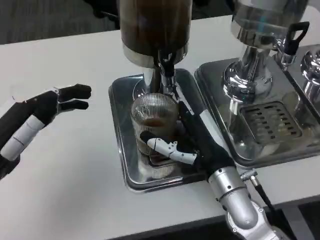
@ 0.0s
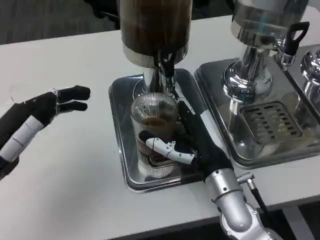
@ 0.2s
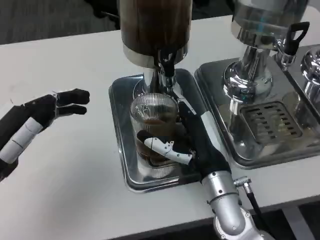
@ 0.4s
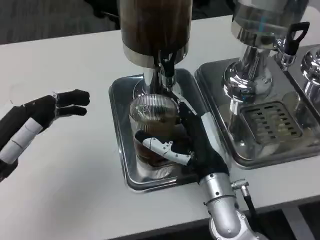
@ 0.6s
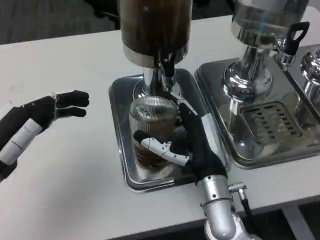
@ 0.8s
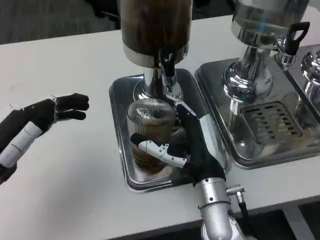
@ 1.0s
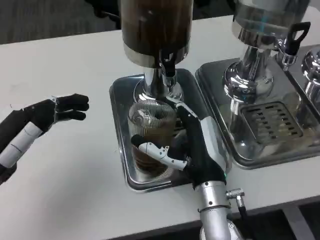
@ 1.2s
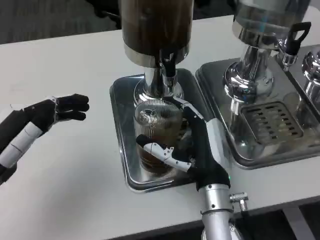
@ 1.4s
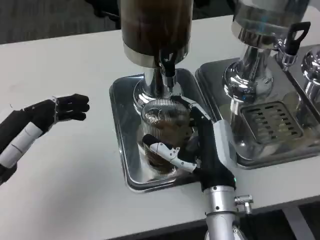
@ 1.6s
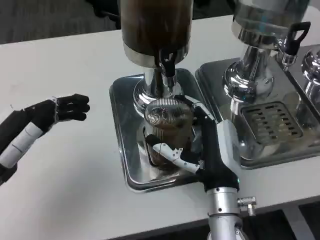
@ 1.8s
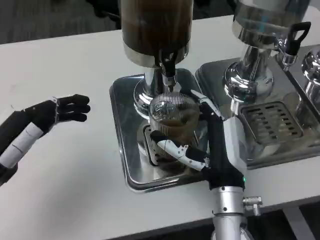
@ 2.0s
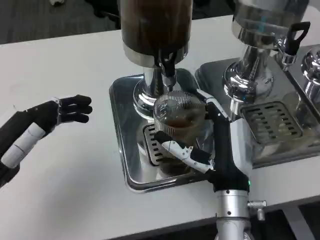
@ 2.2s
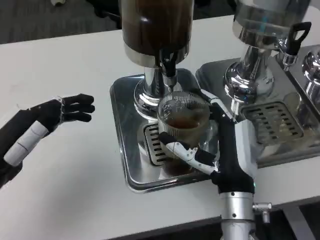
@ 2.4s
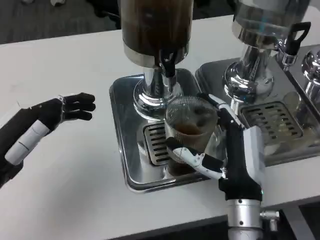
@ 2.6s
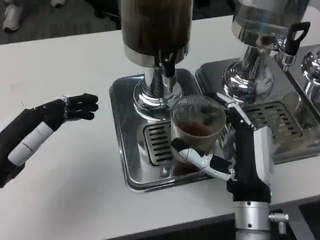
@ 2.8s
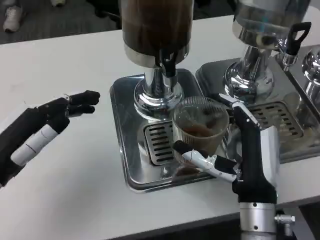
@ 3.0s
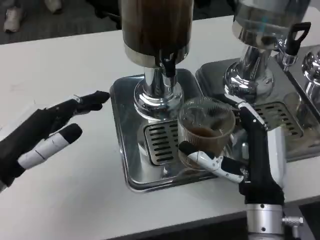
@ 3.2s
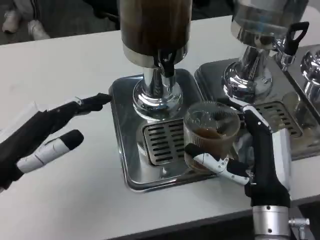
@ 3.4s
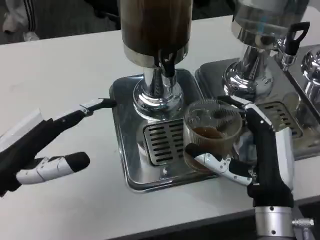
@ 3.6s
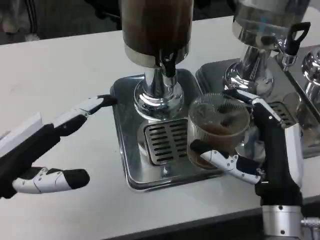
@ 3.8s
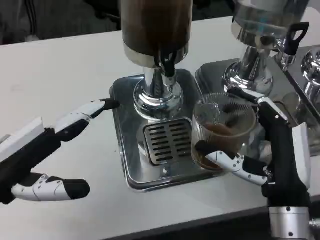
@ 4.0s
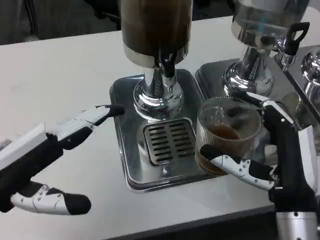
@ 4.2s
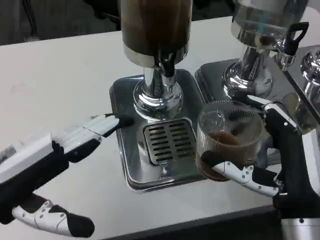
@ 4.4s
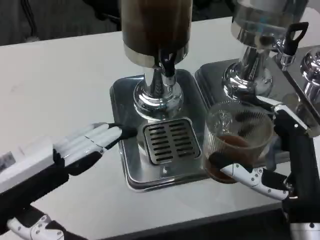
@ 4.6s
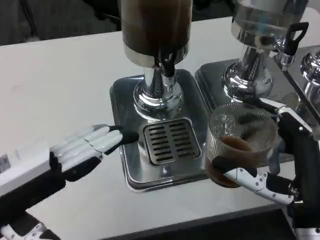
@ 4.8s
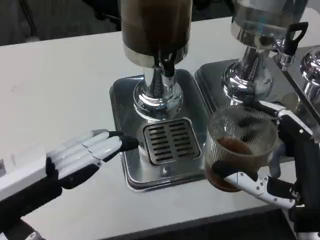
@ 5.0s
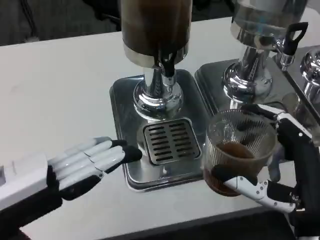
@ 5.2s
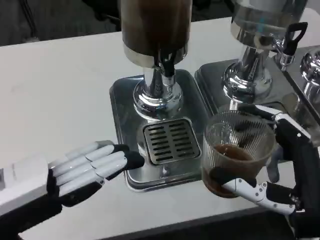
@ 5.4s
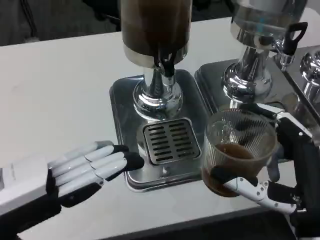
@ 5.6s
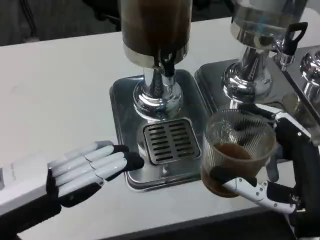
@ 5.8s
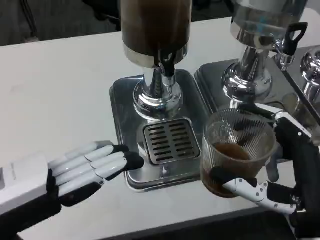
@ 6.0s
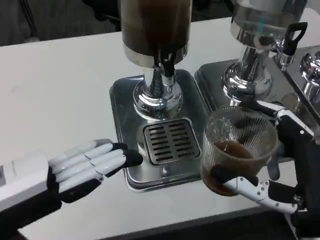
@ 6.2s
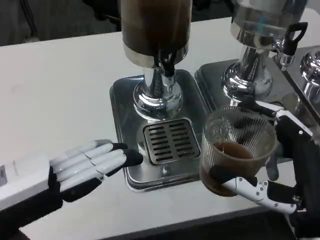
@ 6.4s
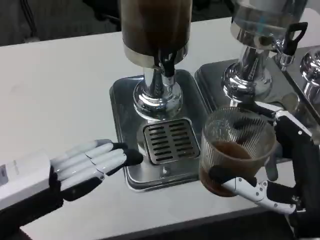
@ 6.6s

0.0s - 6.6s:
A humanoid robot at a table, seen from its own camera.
Task of the whole recording: Grasp the cup under the faucet to collect the drink, then remove the cup.
1.6s - 3.2s: The right hand heads to the right, covering approximately 5 cm.
3.2s - 5.0s: Both hands move backward, some 5 cm.
5.0s - 6.6s: The hands stay close to where they were, moving slightly.

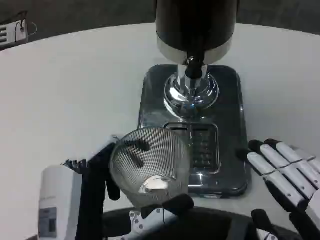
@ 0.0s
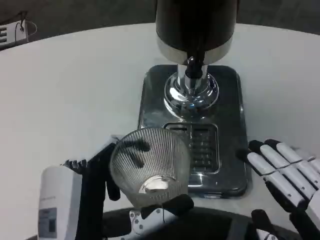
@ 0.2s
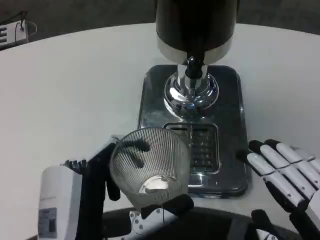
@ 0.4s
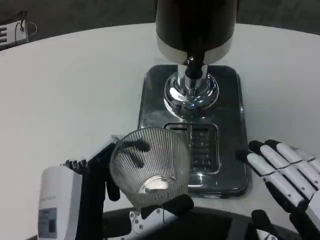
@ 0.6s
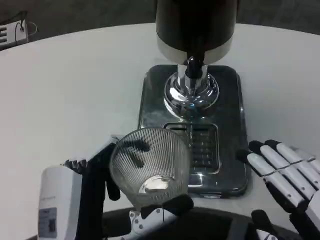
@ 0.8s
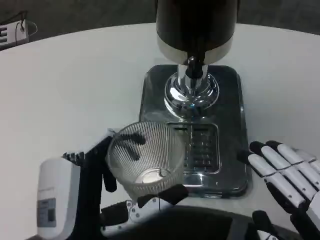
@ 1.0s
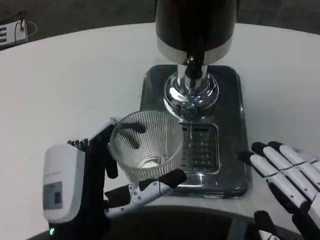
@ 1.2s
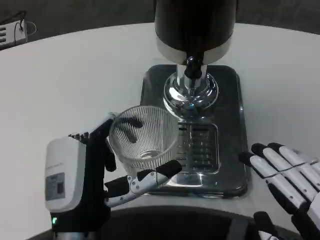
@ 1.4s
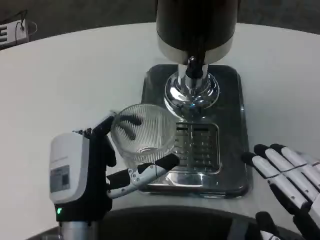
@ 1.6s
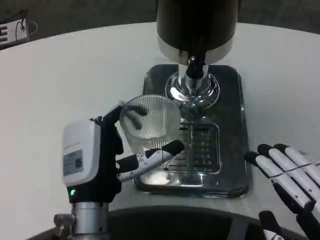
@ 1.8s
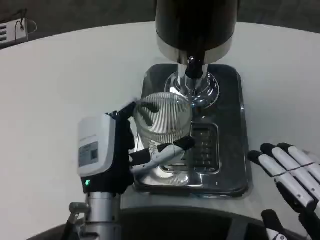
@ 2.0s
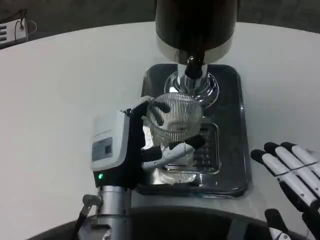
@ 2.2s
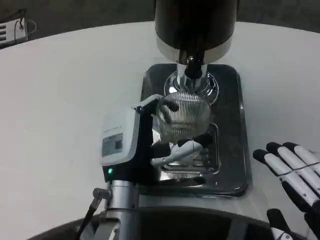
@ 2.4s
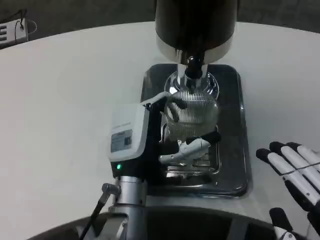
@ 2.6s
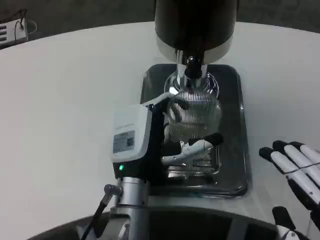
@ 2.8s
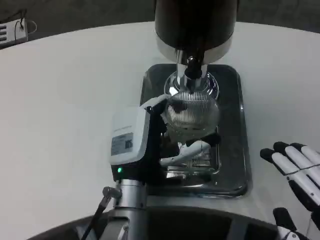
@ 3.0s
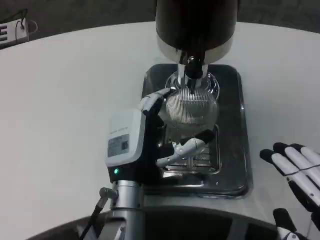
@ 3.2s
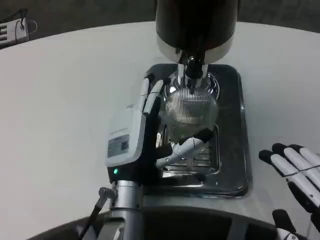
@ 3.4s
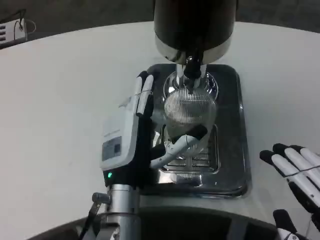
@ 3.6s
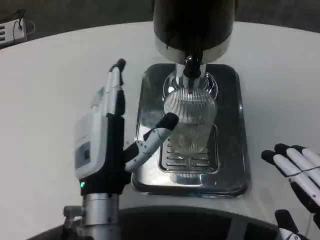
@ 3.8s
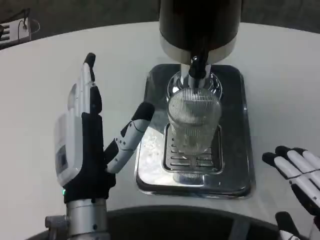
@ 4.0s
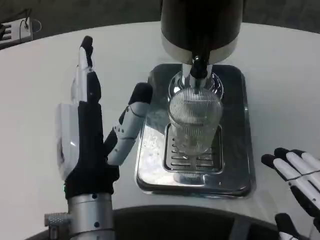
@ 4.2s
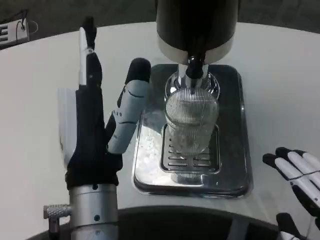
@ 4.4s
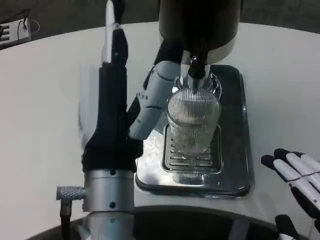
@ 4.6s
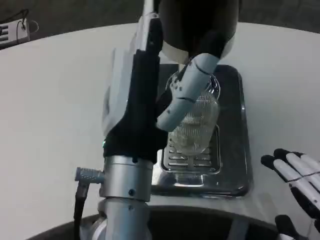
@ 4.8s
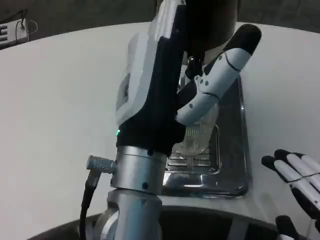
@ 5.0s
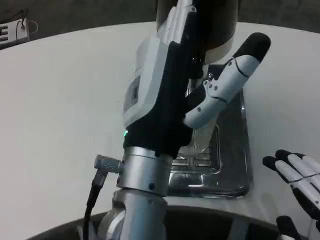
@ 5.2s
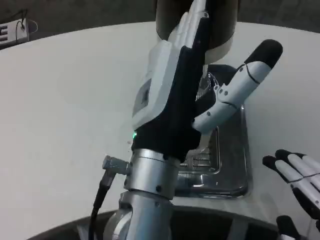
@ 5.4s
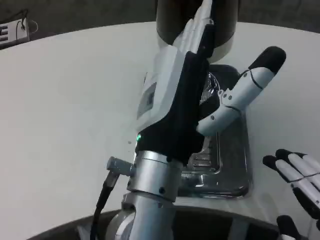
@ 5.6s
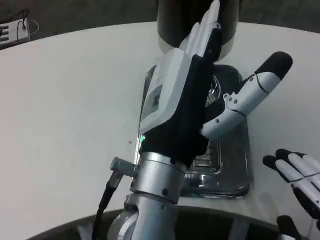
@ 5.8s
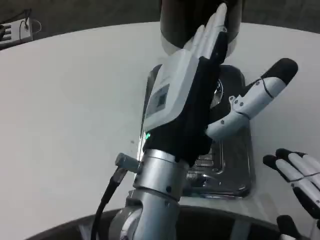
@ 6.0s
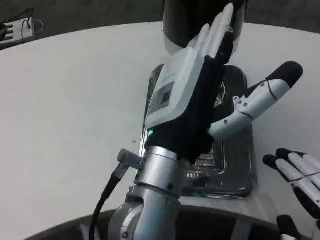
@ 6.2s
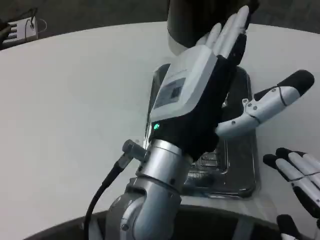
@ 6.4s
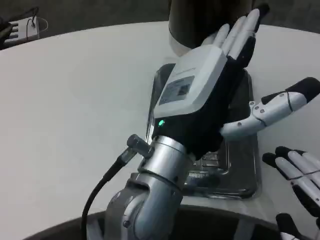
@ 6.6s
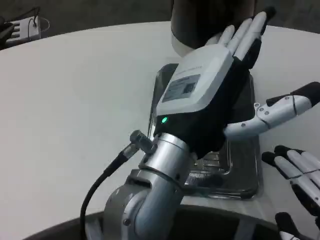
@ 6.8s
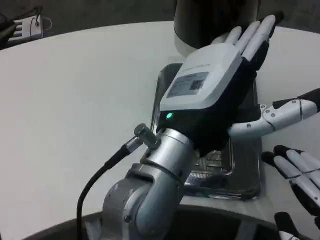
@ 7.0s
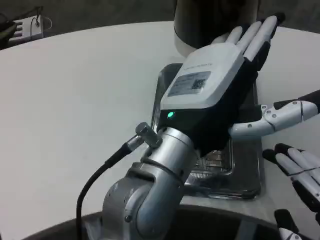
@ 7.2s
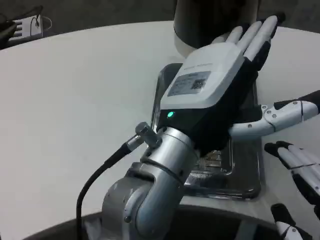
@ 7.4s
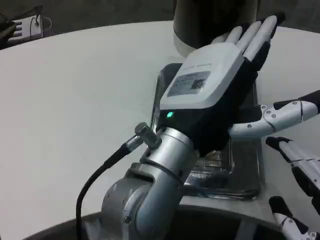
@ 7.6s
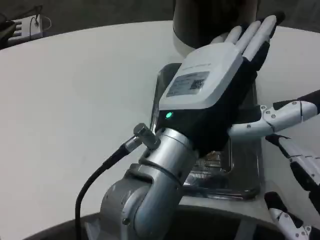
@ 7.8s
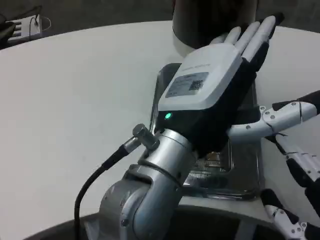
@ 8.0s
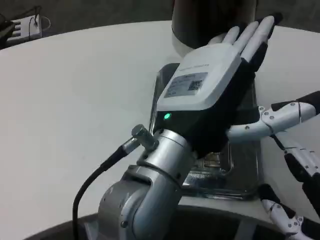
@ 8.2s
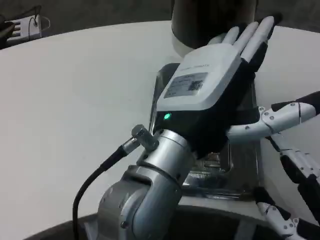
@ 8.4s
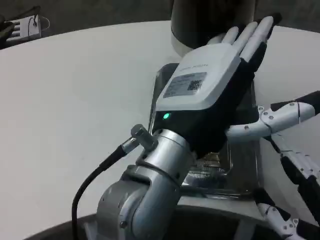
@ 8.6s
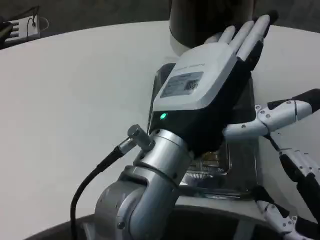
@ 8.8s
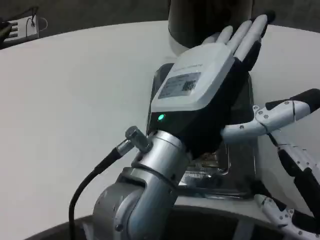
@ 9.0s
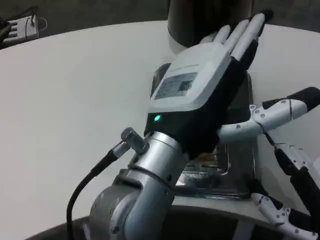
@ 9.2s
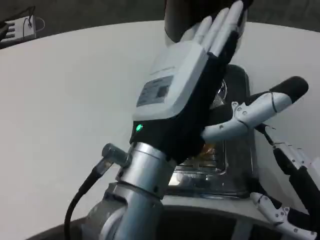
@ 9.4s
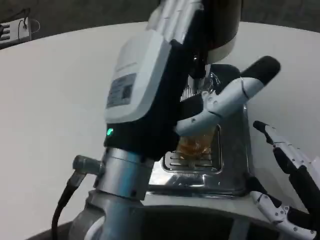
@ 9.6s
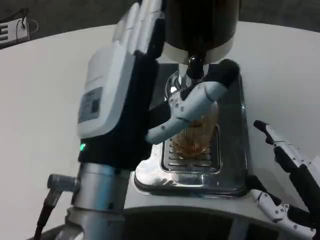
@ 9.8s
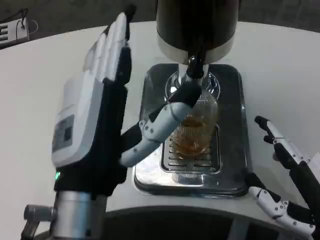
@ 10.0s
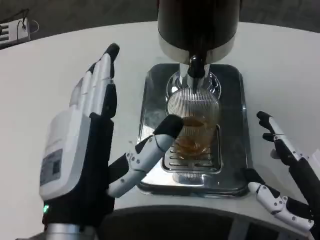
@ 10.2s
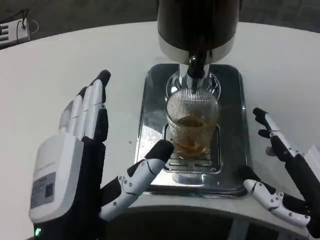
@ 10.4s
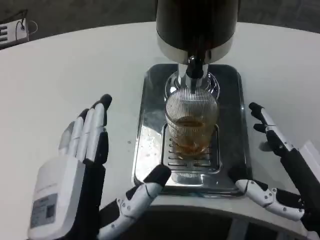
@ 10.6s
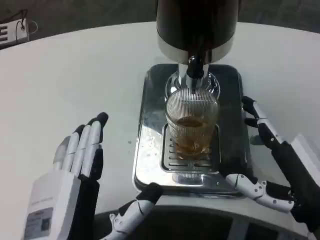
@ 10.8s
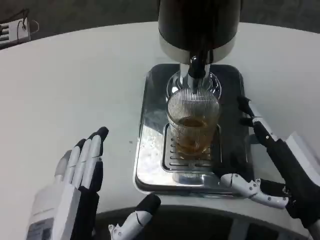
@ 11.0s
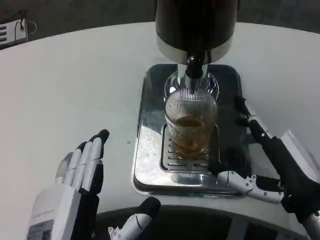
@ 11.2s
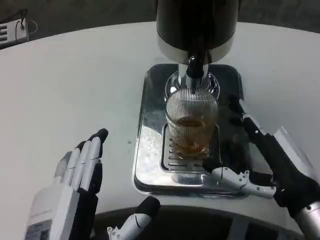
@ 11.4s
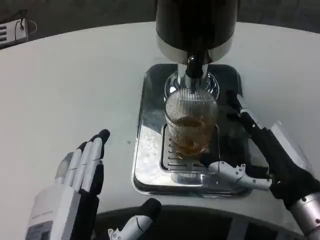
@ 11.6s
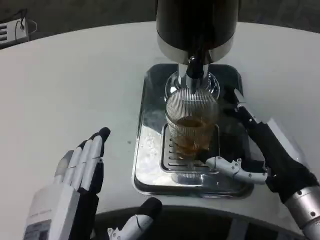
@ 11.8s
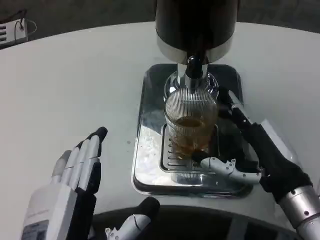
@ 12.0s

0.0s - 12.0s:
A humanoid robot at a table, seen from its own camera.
Task of the whole recording: Grasp the cup under the faucet to collect the drink, then remove the cup.
0.0s - 1.6s: The left hand shifts some 10 cm forward.
1.6s - 3.0s: The left hand is displaced forward and to the right by about 10 cm.
3.0s - 4.4s: The left hand goes about 15 cm backward and upward.
4.4s - 6.0s: The left hand ends up some 5 cm from where it was.
9.0s - 10.4s: The left hand heads downward, to the left and backward, covering some 15 cm.
10.4s - 12.0s: The left hand ends up roughly 5 cm from where it was, while the right hand heads forward, covering some 5 cm.

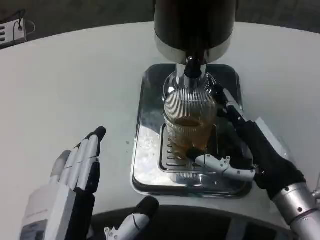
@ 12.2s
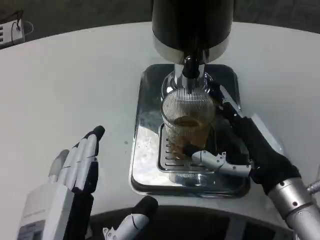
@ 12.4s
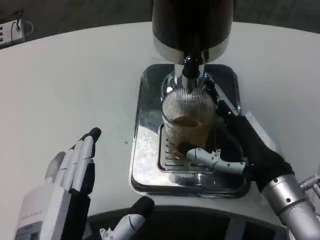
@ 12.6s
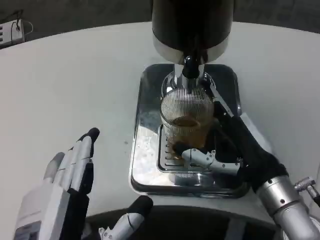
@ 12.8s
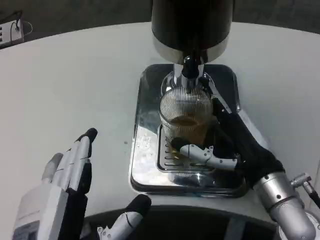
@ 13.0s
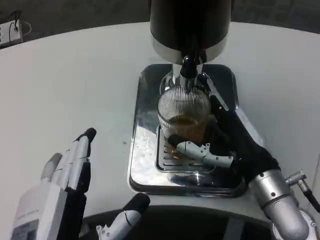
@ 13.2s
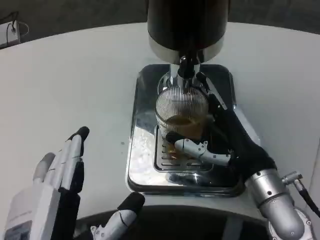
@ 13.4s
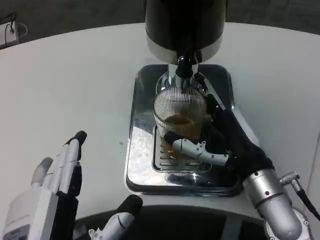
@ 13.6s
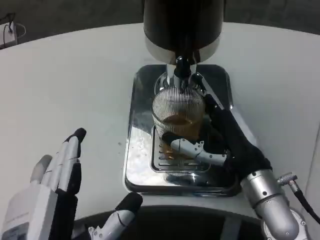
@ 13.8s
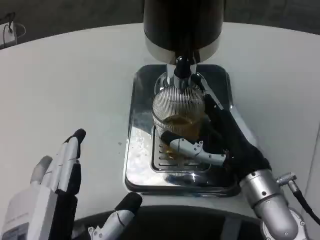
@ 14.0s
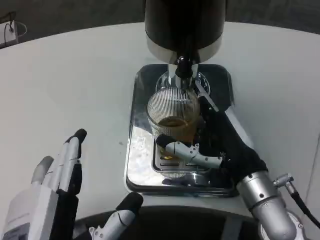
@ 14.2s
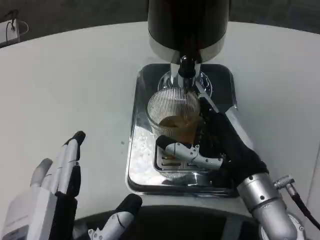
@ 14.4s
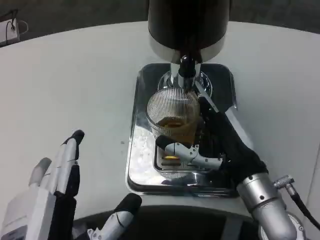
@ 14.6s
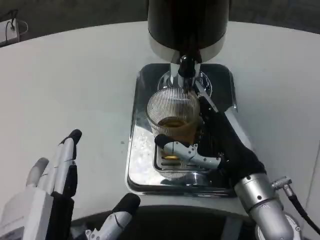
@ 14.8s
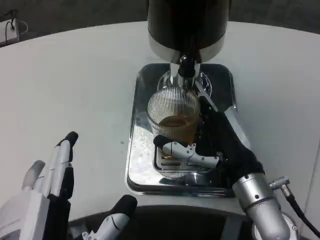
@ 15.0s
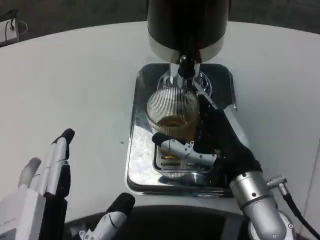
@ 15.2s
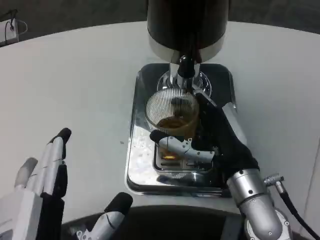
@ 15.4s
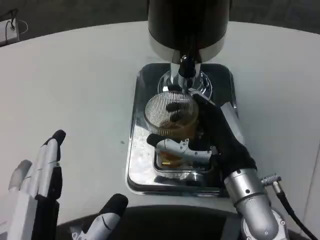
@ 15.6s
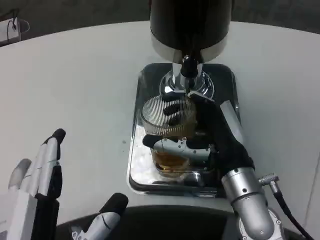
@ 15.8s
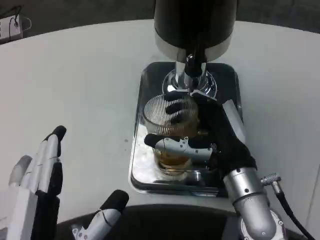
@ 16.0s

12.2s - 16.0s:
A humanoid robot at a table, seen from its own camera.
Task of the whole recording: Grasp the cup under the faucet to collect the drink, then remove the cup.
13.4s - 14.8s: The hands stay close to where they were, moving slightly.
